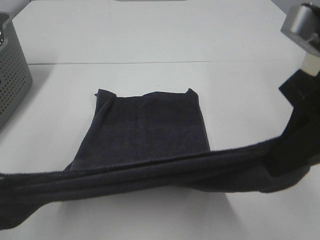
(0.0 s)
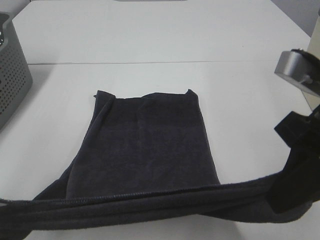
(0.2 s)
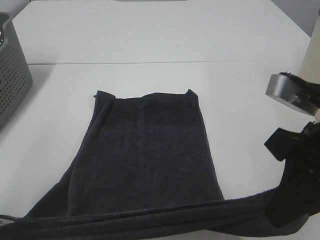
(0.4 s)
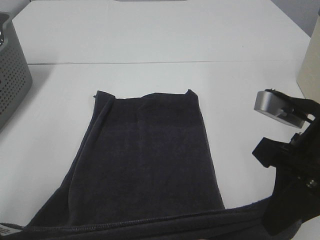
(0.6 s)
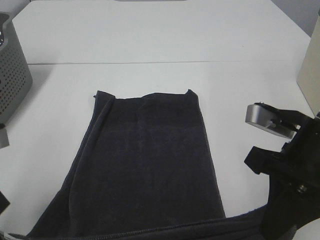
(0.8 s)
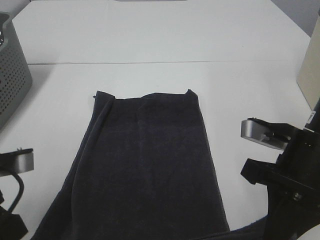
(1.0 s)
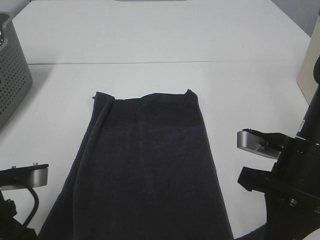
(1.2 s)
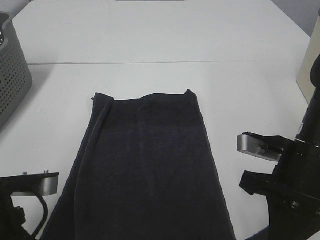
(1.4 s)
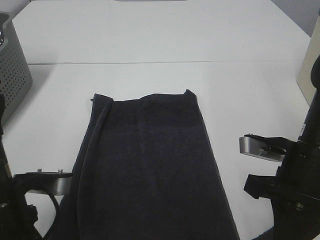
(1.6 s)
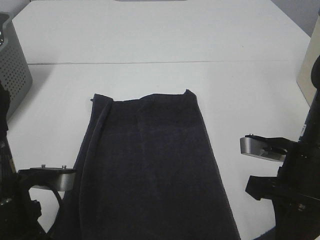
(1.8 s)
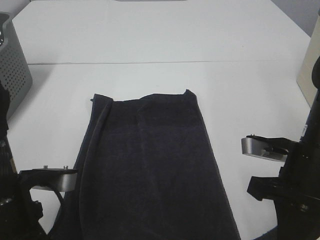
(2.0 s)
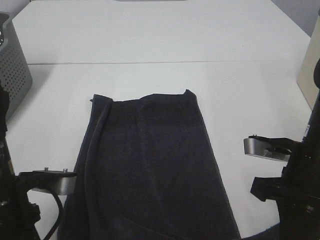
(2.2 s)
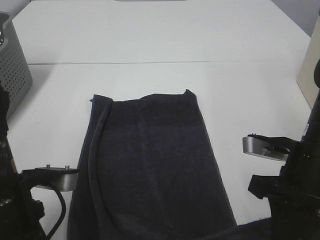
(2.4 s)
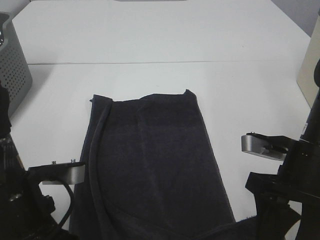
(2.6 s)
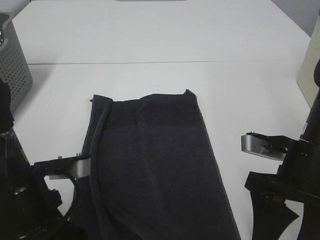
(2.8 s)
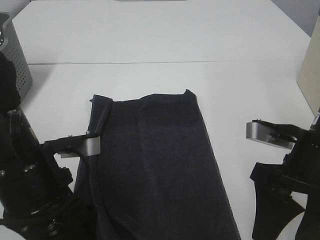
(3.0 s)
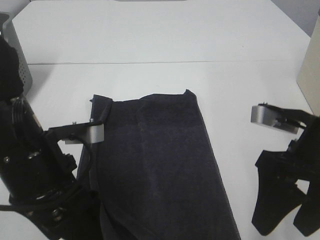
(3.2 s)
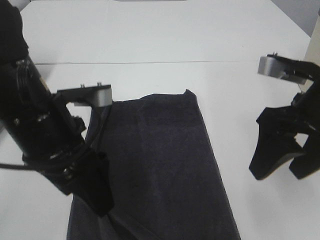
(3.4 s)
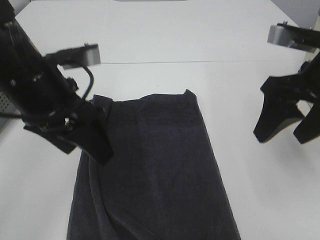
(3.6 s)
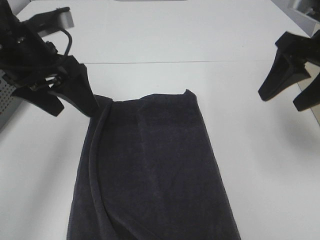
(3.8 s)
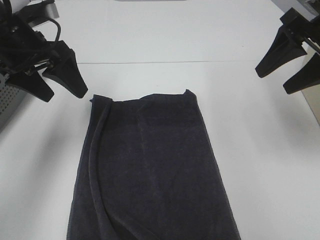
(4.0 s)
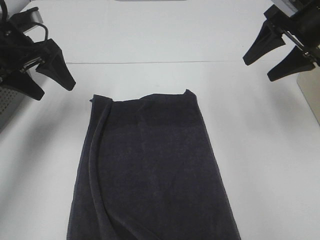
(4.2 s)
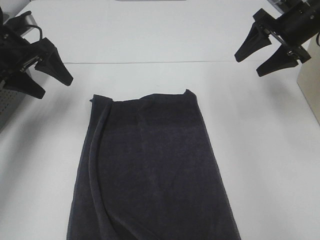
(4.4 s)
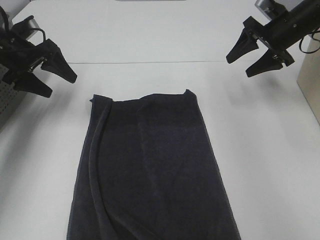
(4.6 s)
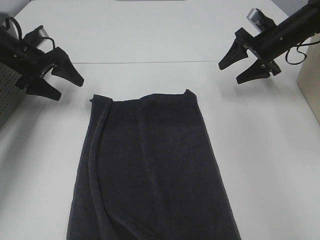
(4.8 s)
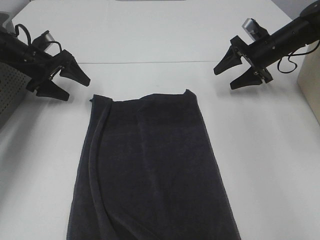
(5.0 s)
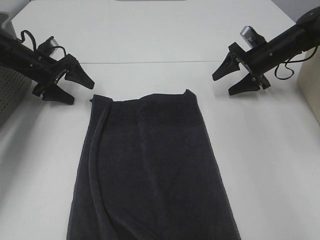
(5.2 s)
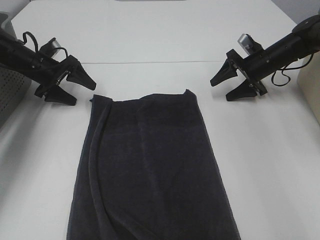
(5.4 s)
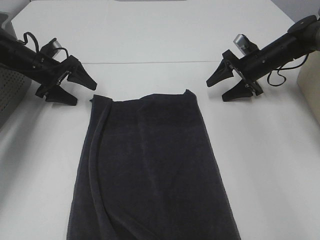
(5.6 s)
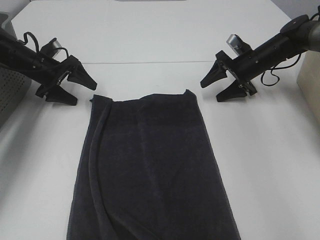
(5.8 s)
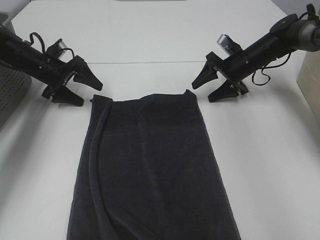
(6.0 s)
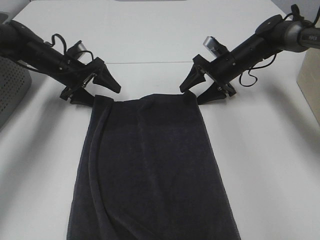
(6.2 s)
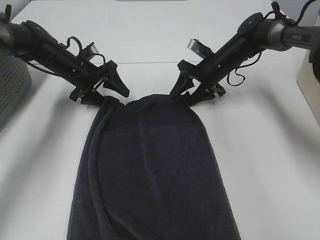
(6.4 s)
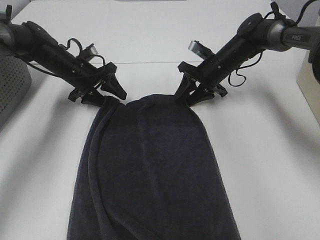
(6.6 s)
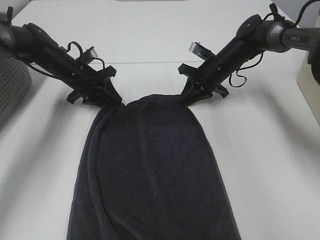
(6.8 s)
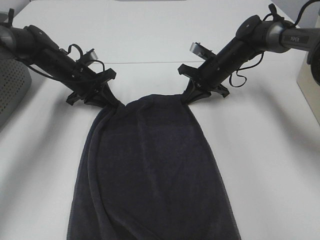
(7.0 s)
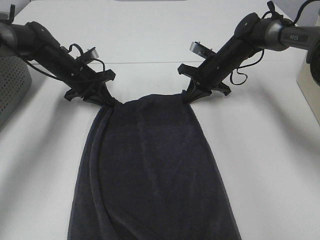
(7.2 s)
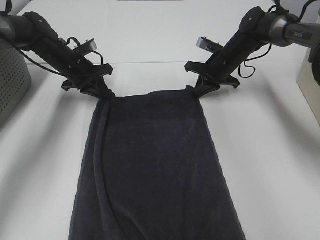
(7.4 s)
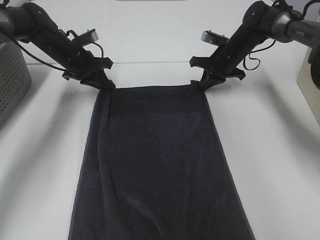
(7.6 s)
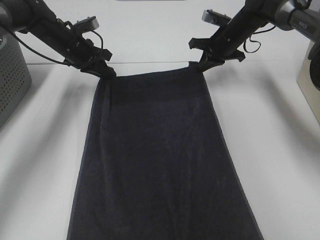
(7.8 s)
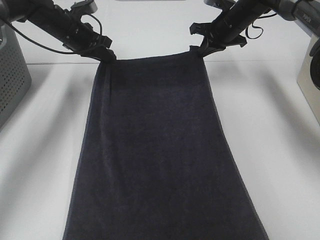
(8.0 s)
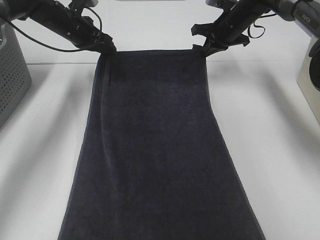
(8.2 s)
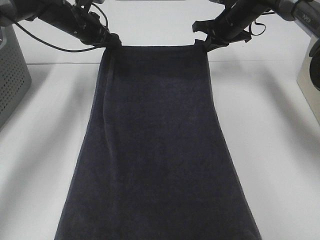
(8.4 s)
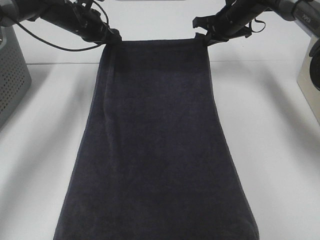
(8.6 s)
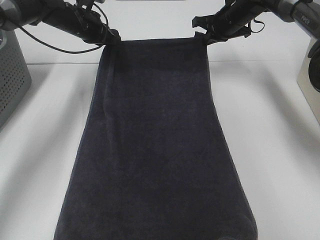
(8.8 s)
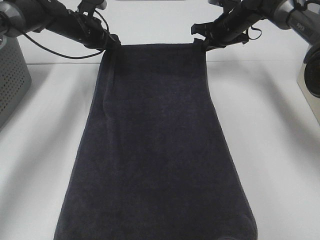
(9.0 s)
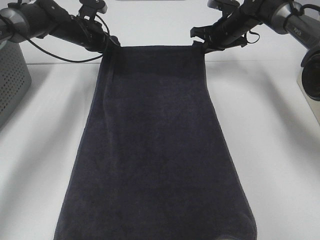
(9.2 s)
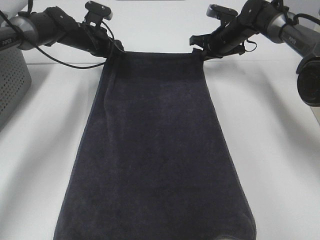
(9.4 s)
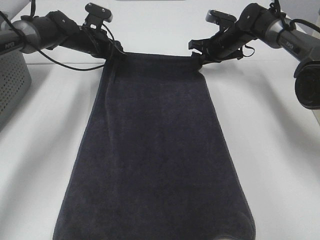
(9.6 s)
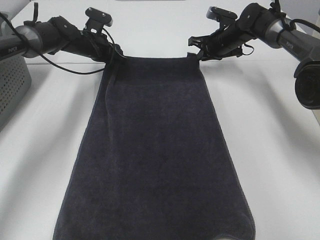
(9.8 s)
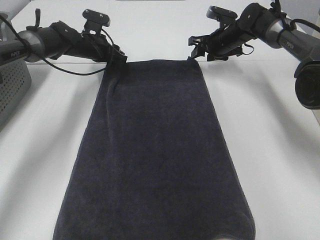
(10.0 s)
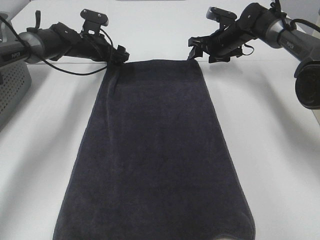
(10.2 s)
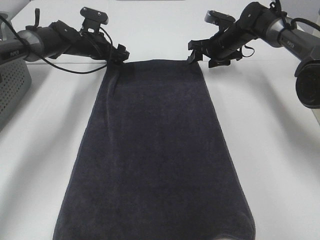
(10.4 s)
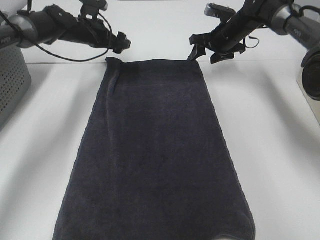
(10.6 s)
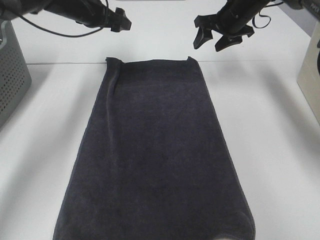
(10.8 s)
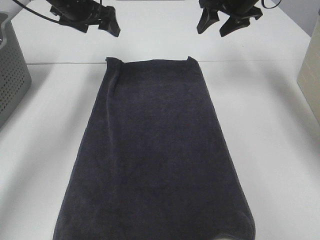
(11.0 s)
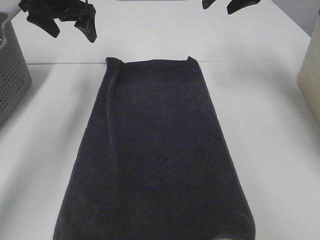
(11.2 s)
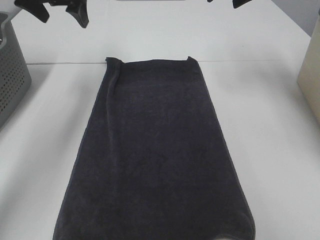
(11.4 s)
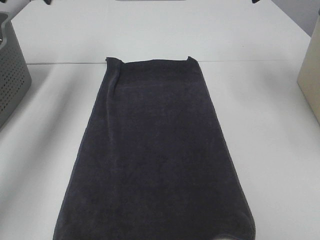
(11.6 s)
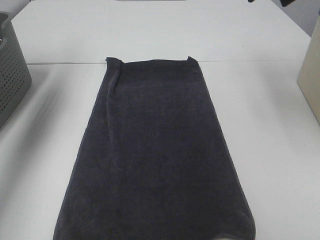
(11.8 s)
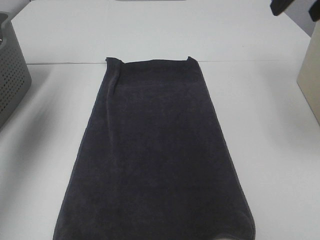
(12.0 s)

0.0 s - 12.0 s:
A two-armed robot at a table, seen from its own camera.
Task of the whole recording: Remove the towel and place it.
Step, 0.0 s - 2.8 s: Left hand:adjust the gray towel.
Step, 0.0 s - 2.8 s: Right hand:adjust the gray towel.
0.0 s - 1.6 s: The left gripper travels downward and to the right by some 15 cm. The right gripper heads downward, covering approximately 15 cm.
1.6 s - 3.0 s: The right gripper opens its fingers; the left gripper opens.
3.0 s - 4.4 s: The right gripper shifts some 25 cm forward. Meanwhile the left gripper shifts about 30 cm forward and to the left.
4.4 s - 6.0 s: The right gripper is displaced downward, forward and to the left by roughly 15 cm. Meanwhile the left gripper goes some 15 cm downward and forward.
6.0 s - 7.6 s: The right gripper closes. Meanwhile the left gripper shifts some 5 cm to the right, and closes its fingers.
7.6 s - 9.0 s: The right gripper moves upward, roughly 5 cm, while the left gripper moves forward, roughly 5 cm.
9.0 s - 10.4 s: The left gripper opens its fingers, while the right gripper opens up.
10.4 s - 12.0 s: The left gripper goes some 40 cm upward, backward and to the left; the right gripper moves backward and upward, about 40 cm.

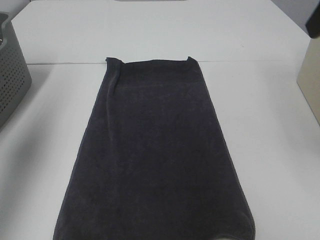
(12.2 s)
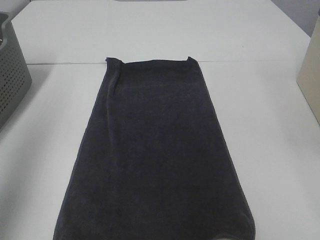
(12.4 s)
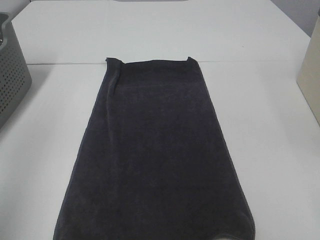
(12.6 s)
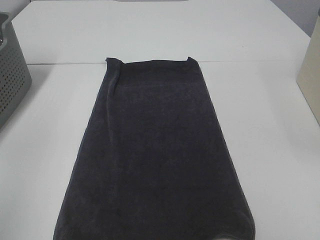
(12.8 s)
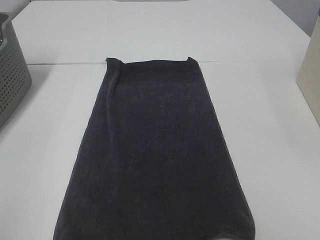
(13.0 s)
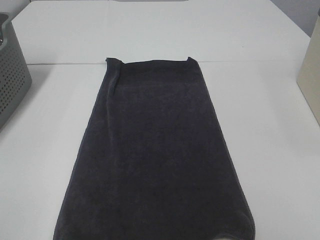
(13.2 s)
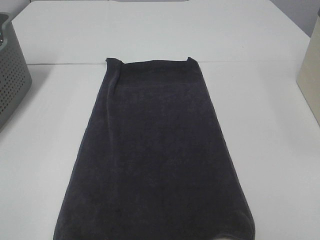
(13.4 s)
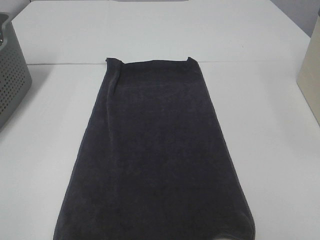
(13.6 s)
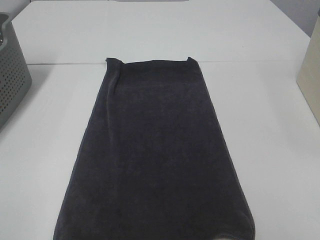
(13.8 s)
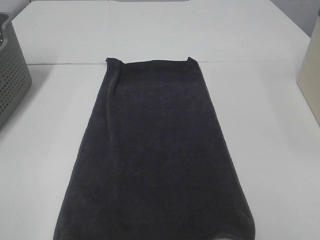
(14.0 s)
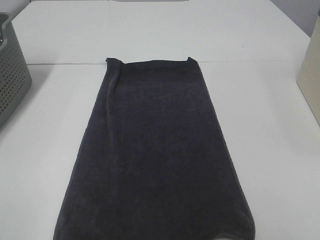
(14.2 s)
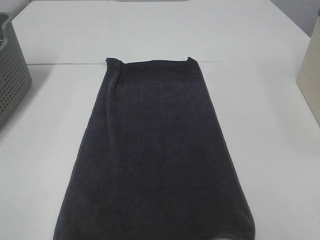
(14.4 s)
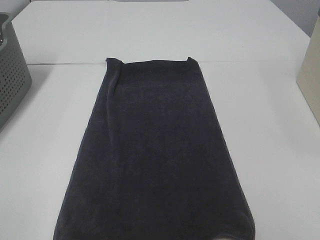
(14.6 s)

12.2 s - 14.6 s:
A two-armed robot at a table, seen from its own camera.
Task of the whole recording: Remove the towel and place it.
12.2 s - 13.4 s: The left gripper shifts about 30 cm backward. Meanwhile the right gripper is displaced backward and downward by about 25 cm.

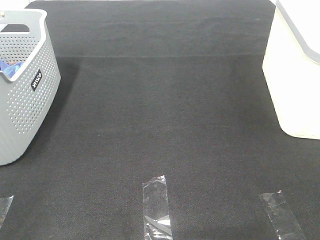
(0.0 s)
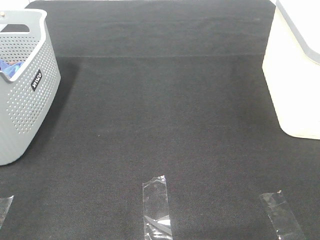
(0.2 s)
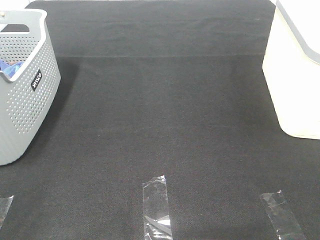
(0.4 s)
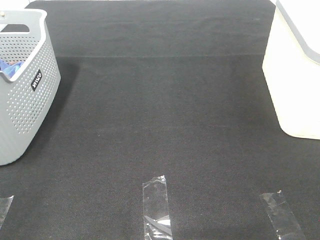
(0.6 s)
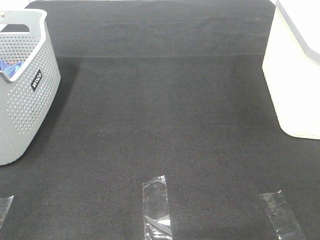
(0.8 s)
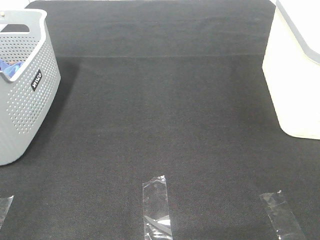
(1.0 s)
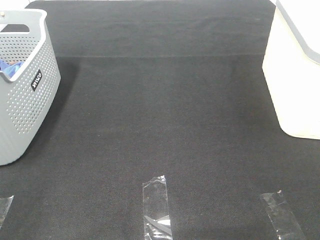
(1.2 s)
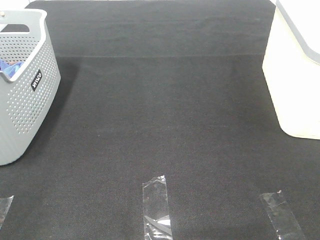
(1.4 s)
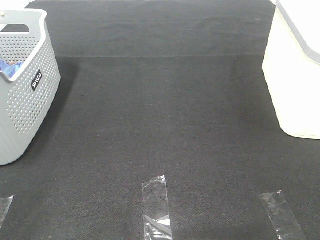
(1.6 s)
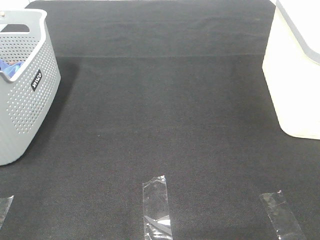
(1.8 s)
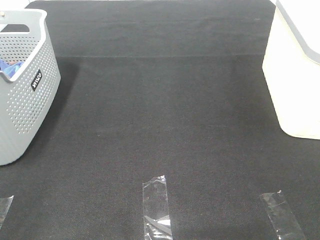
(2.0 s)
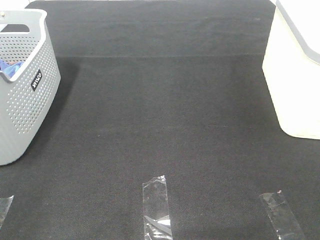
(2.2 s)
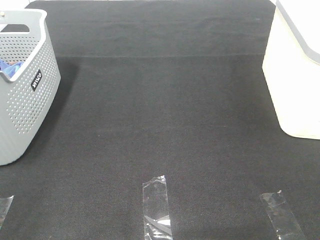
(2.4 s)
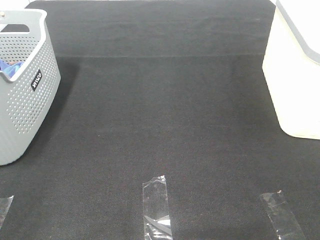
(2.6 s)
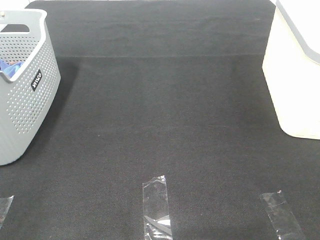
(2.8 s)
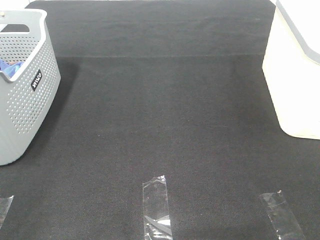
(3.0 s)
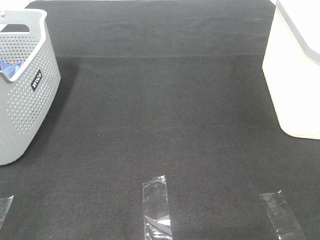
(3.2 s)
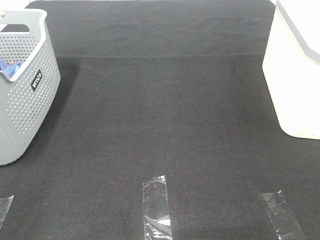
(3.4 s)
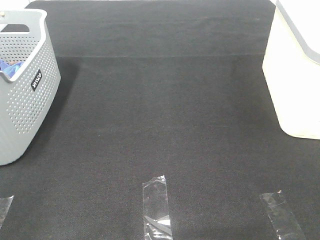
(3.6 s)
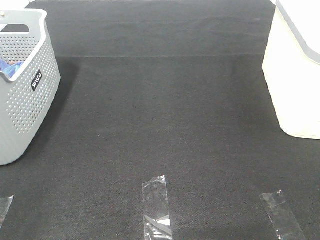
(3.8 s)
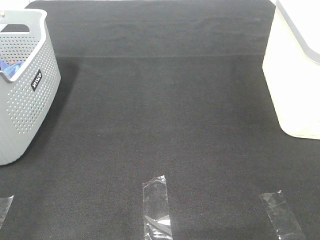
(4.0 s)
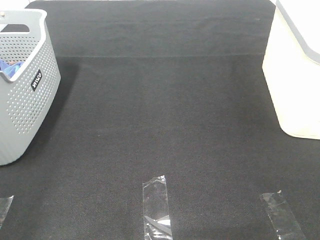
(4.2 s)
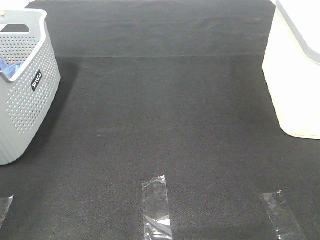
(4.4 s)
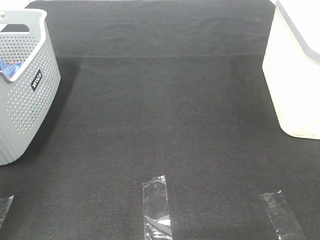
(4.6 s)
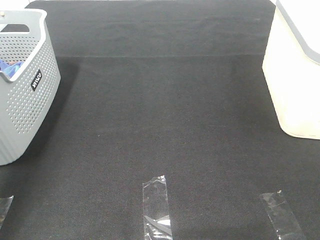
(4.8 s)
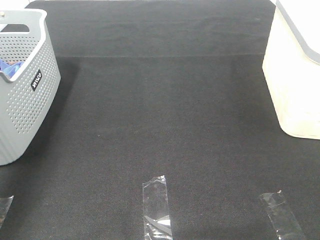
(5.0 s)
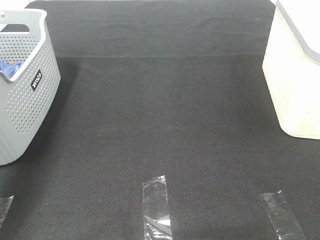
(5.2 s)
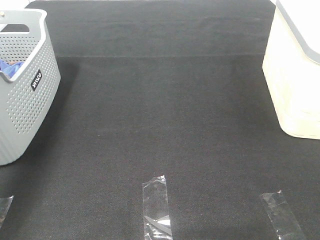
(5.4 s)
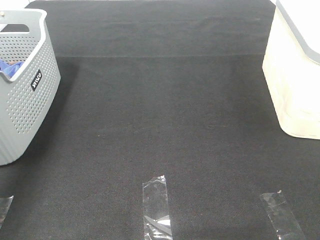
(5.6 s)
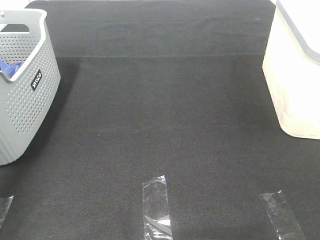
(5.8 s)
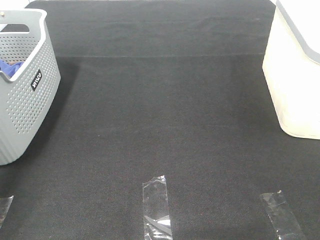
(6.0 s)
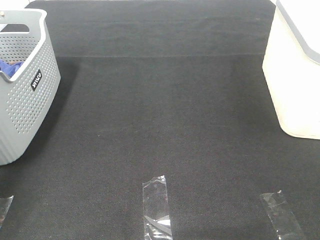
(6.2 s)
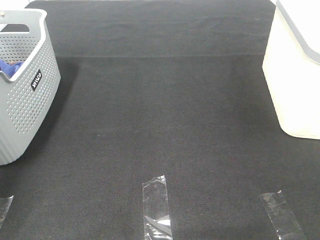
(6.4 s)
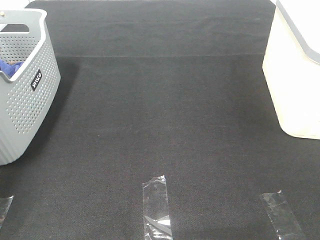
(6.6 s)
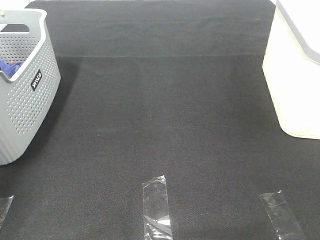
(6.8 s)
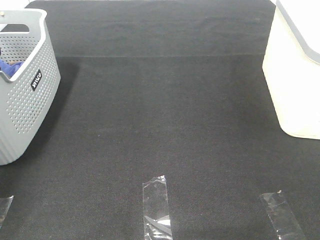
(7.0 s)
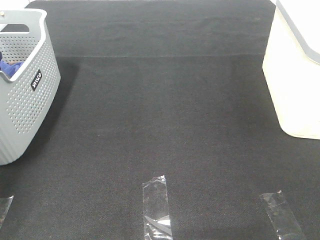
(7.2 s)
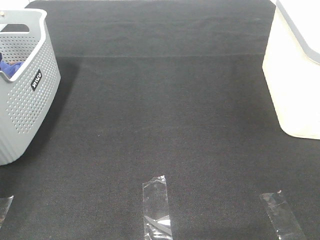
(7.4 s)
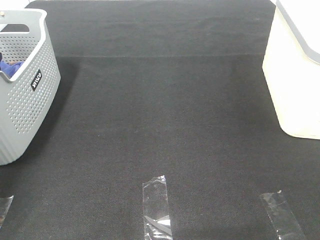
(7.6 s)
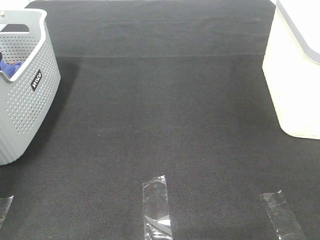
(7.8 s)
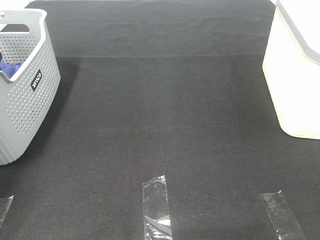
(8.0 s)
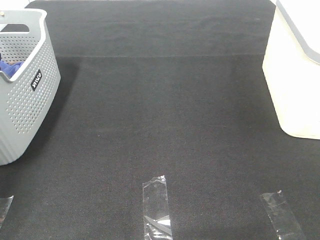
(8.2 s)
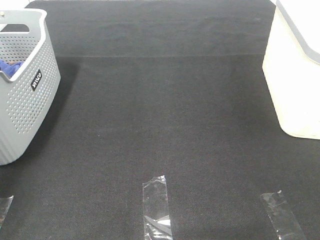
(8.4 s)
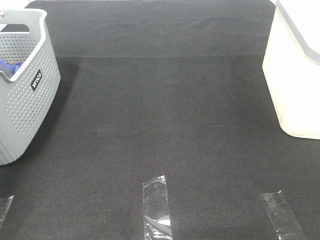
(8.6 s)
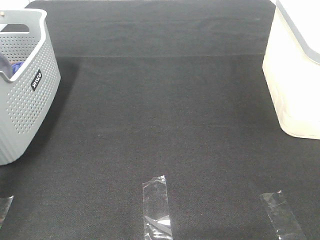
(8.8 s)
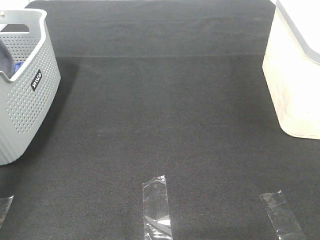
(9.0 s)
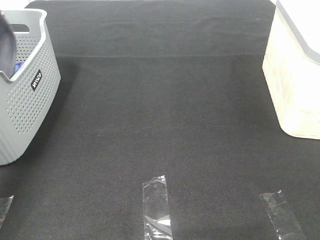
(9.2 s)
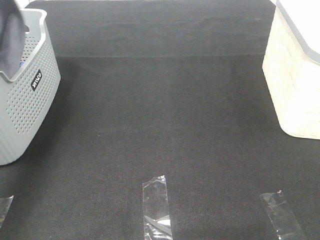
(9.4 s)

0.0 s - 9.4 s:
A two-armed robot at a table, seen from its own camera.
Task of the whole recording: Remove the towel and place it.
0.0 s - 3.2 s: Both grippers stay put.
3.2 s - 4.8 s: The left gripper travels forward by about 20 cm.
4.8 s - 6.2 s: The left gripper goes roughly 25 cm forward.
7.8 s - 9.4 s: The left gripper heads upward and backward, covering approximately 25 cm.
